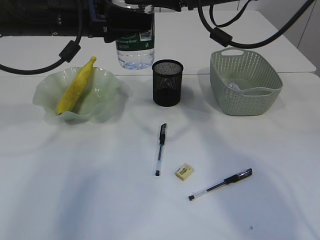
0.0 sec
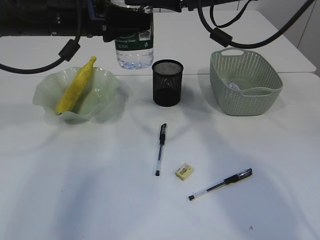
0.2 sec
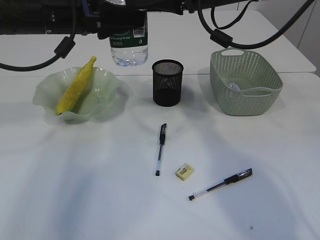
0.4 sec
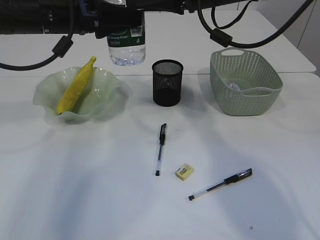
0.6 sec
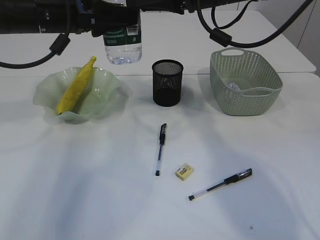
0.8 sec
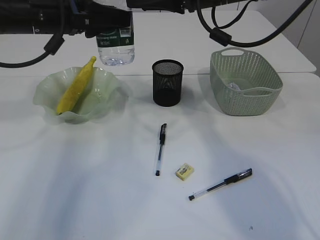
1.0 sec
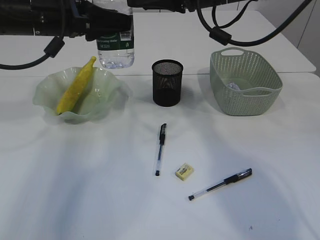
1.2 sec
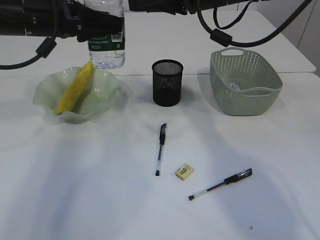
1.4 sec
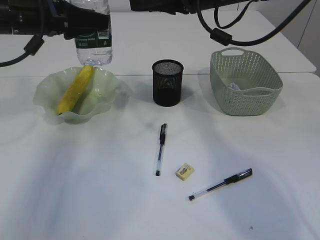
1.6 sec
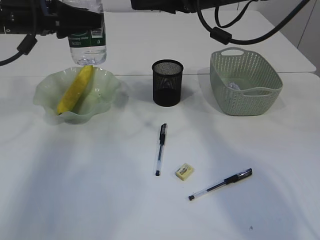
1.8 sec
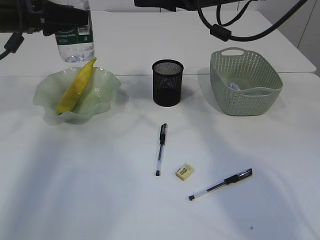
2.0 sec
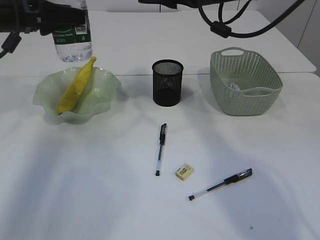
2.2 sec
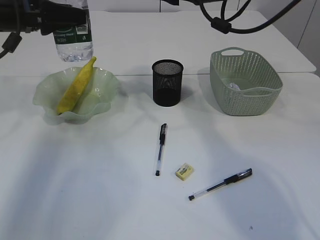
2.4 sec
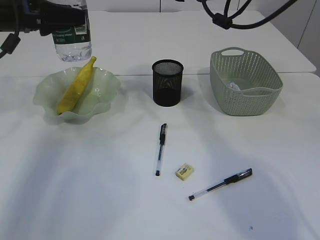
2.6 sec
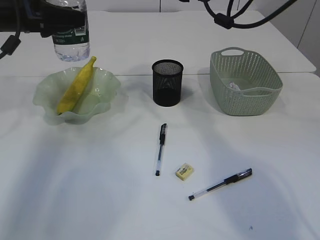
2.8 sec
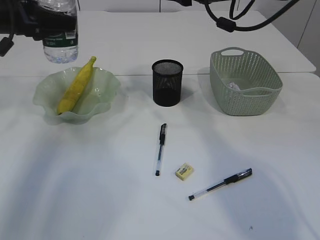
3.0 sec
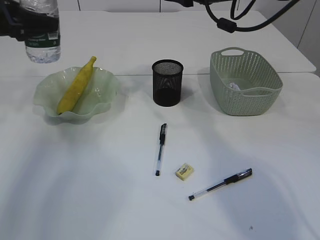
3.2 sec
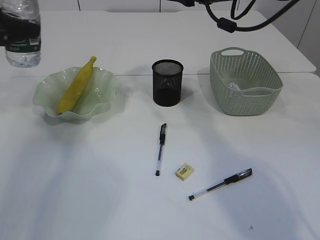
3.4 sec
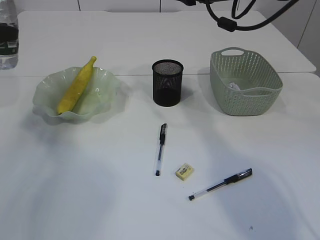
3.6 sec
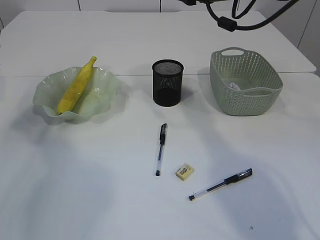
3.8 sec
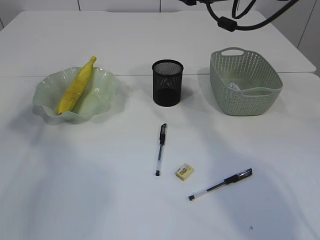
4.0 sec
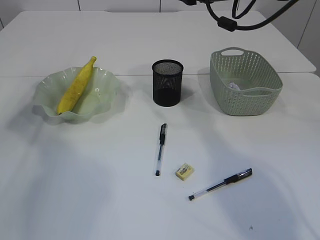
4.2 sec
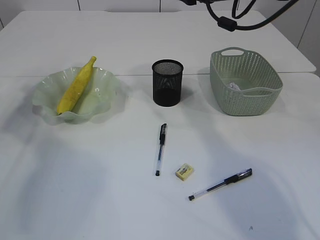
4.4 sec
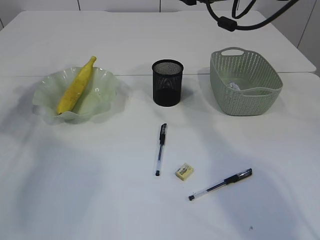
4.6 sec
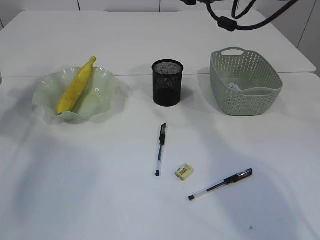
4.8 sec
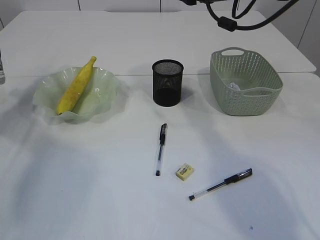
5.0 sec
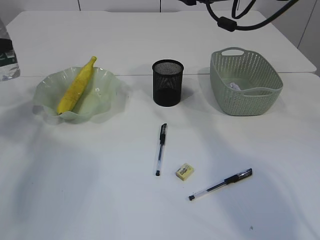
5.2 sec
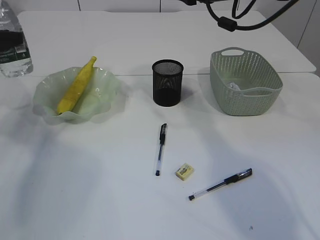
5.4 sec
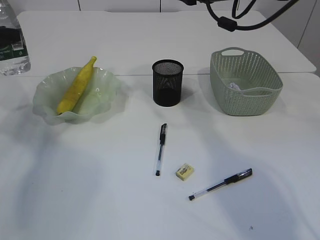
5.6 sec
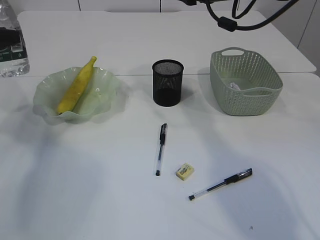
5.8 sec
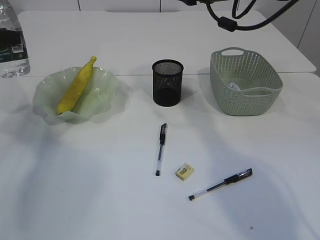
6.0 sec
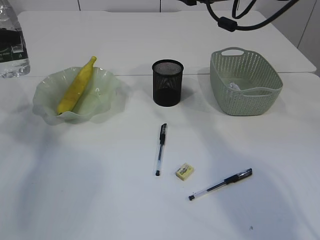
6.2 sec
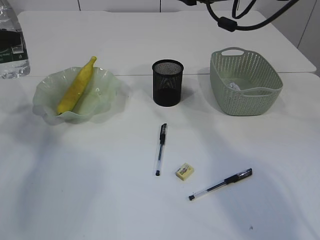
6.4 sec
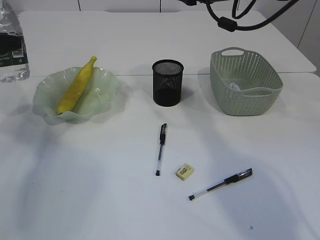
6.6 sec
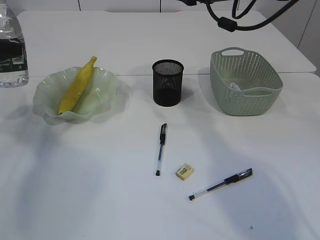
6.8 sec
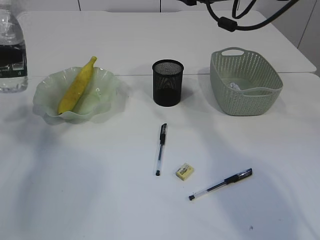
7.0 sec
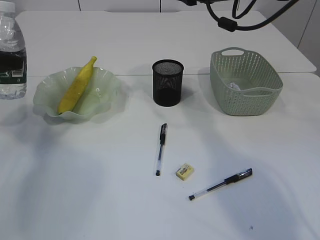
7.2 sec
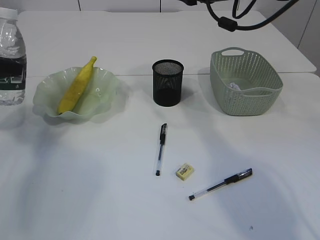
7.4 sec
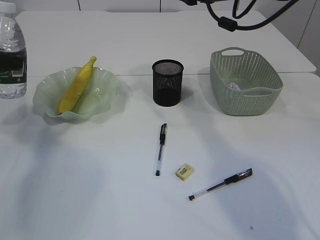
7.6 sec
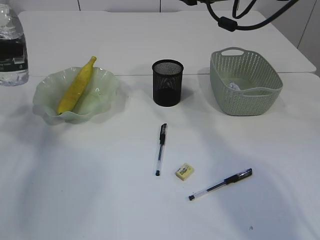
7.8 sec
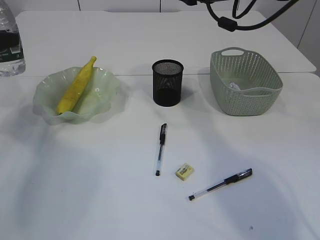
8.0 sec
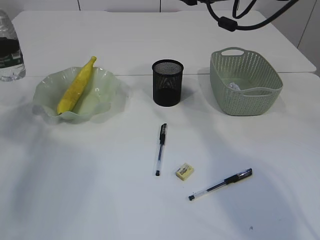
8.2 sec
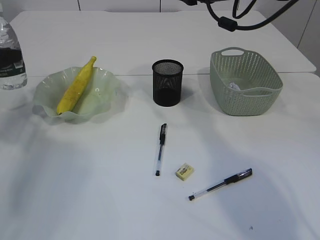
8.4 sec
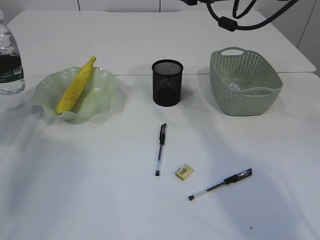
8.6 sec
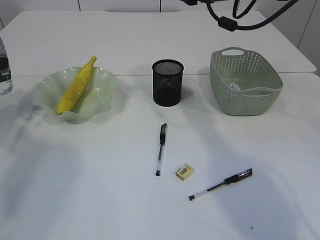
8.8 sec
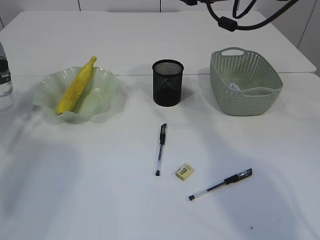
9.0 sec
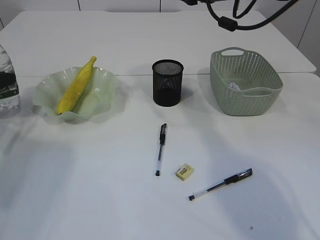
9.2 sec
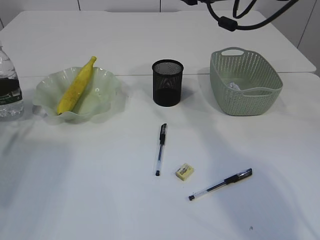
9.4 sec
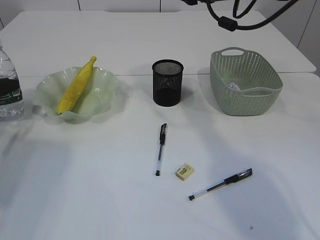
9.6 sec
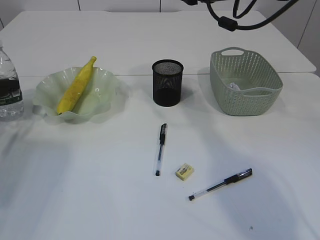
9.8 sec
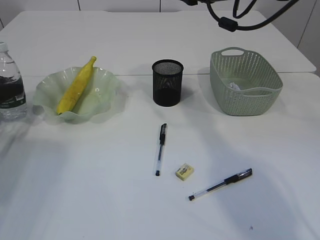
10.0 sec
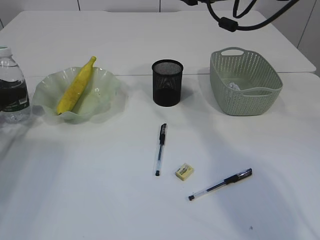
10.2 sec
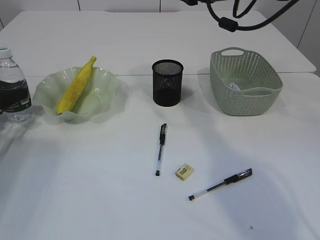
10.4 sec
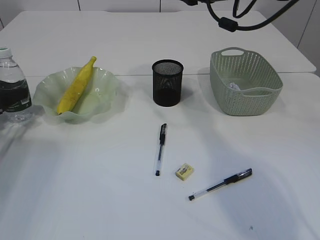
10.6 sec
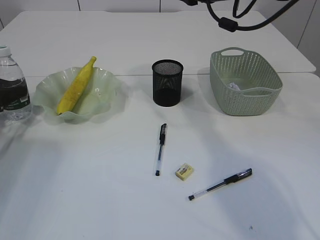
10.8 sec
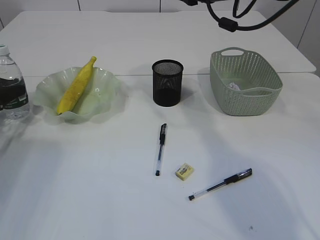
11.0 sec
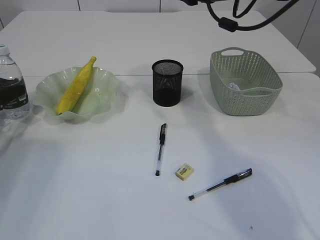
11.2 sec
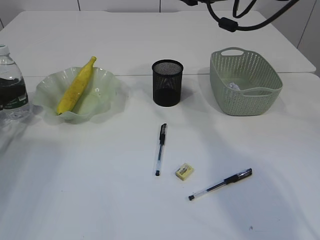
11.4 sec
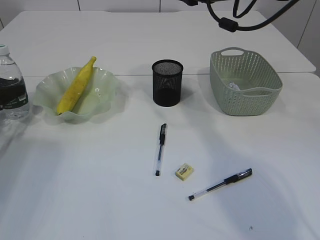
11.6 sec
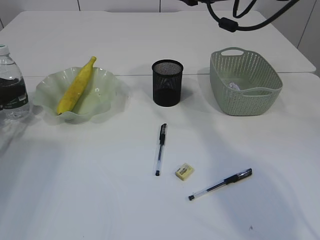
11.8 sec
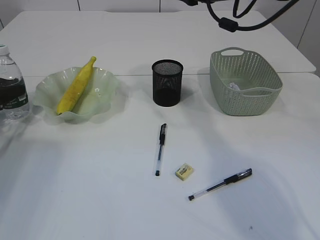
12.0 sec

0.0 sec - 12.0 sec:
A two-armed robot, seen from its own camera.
0.0 sec - 1.6 sec: The left gripper moves to the left, roughly 5 cm.
1.6 sec - 3.0 sec: The left gripper goes about 5 cm to the left. Meanwhile the right gripper closes up.
3.0 sec - 4.4 sec: The left gripper moves to the left, some 15 cm.
6.0 sec - 7.6 sec: The grippers stay close to where they were, moving slightly.
7.6 sec - 9.0 sec: The left gripper shifts roughly 10 cm downward and to the left.
9.0 sec - 10.4 sec: The left gripper is displaced downward by some 10 cm.

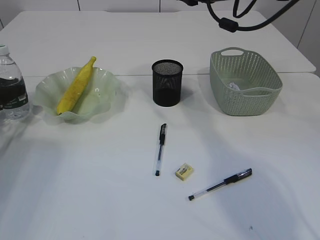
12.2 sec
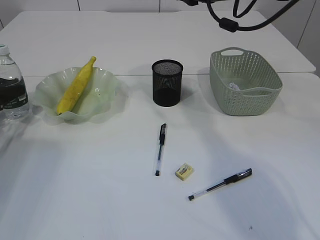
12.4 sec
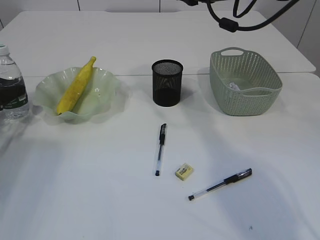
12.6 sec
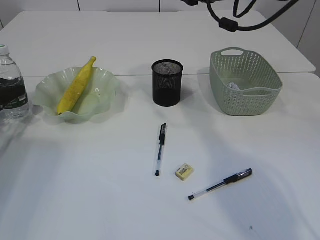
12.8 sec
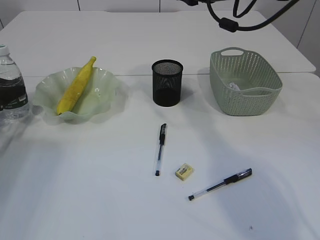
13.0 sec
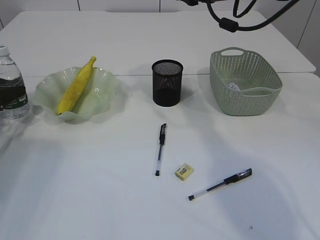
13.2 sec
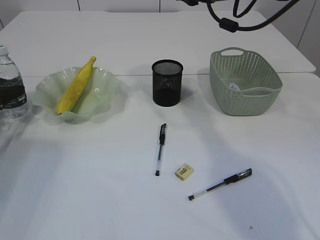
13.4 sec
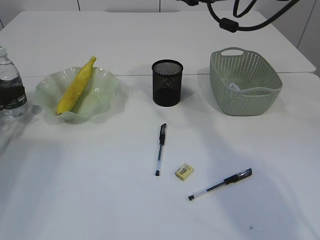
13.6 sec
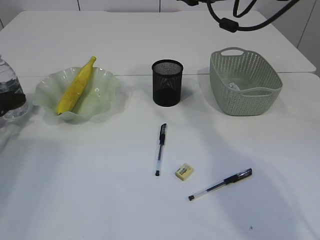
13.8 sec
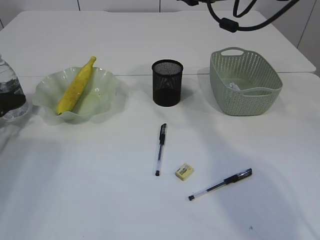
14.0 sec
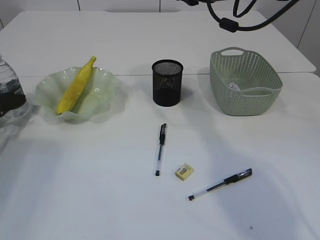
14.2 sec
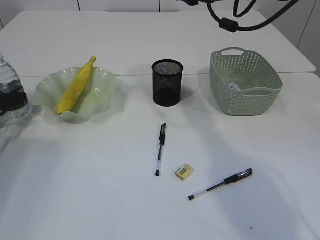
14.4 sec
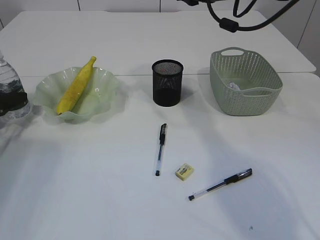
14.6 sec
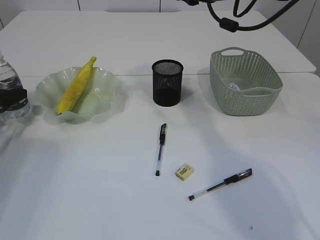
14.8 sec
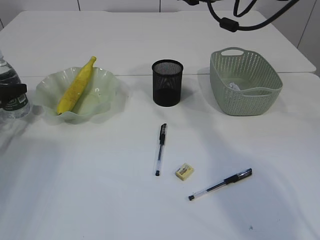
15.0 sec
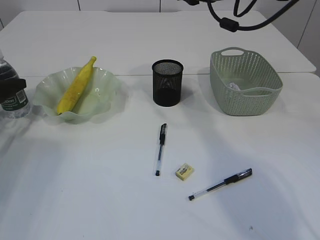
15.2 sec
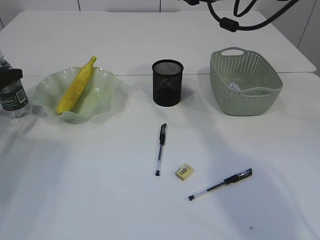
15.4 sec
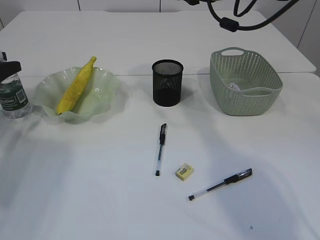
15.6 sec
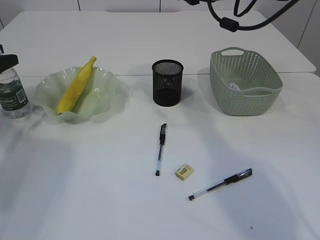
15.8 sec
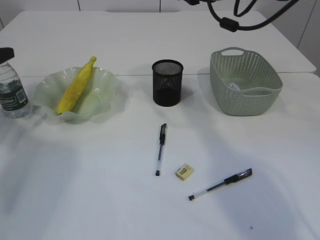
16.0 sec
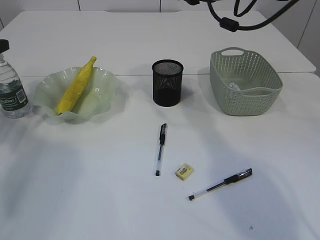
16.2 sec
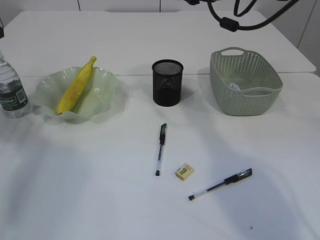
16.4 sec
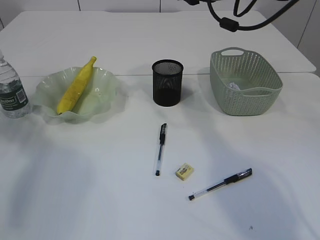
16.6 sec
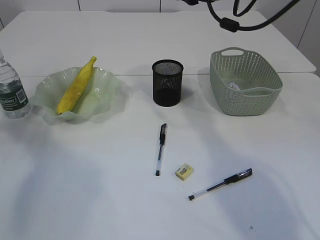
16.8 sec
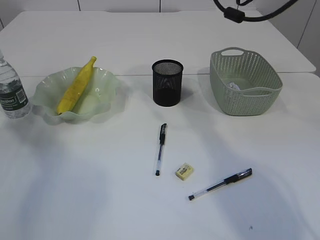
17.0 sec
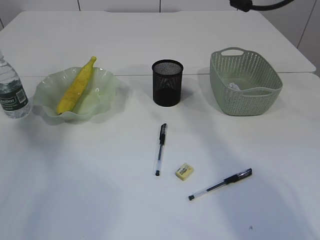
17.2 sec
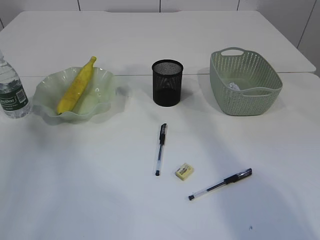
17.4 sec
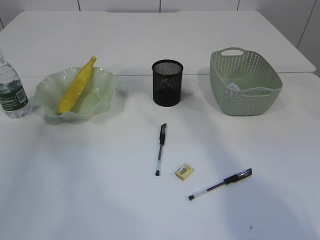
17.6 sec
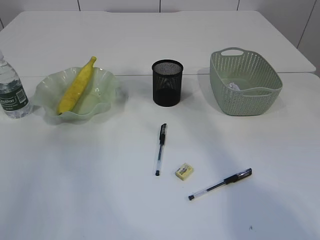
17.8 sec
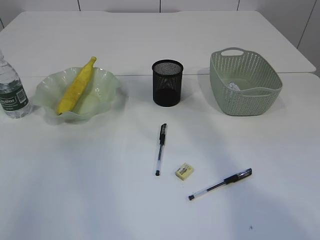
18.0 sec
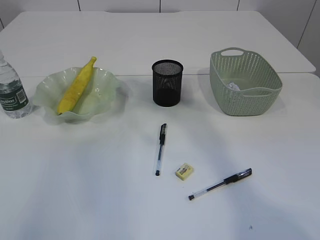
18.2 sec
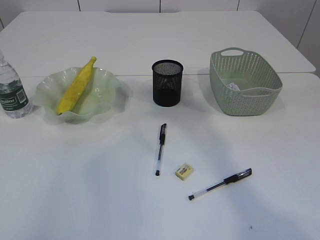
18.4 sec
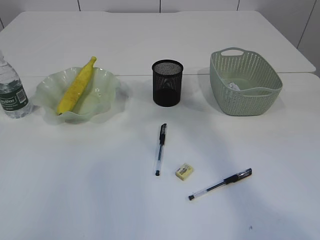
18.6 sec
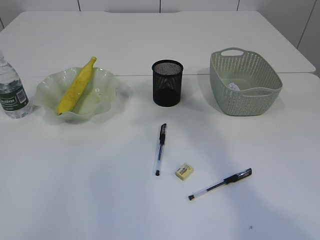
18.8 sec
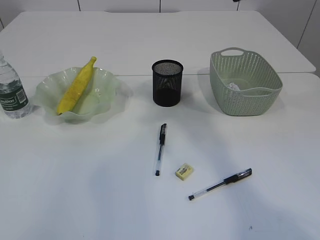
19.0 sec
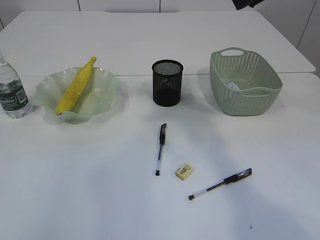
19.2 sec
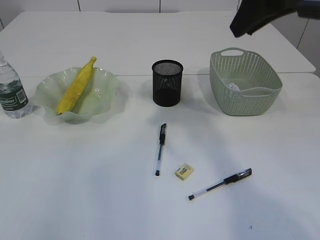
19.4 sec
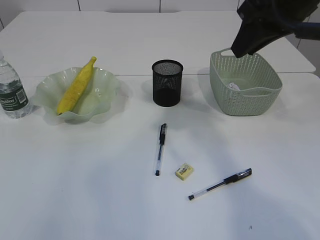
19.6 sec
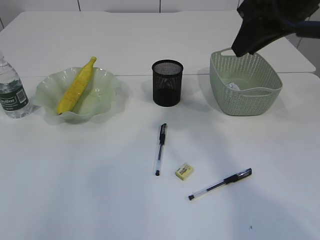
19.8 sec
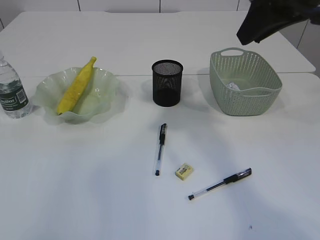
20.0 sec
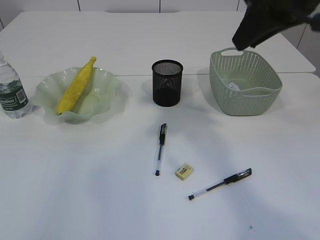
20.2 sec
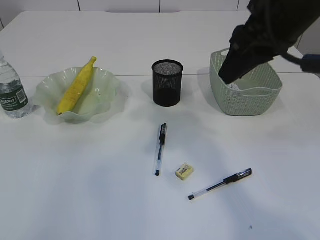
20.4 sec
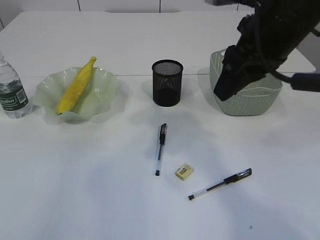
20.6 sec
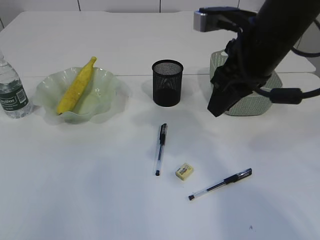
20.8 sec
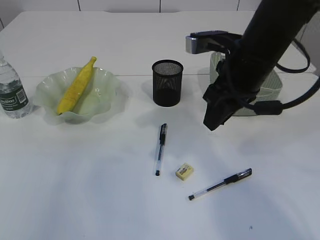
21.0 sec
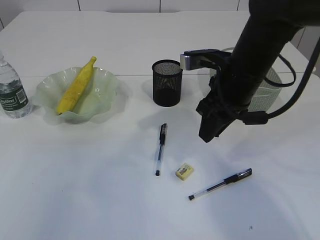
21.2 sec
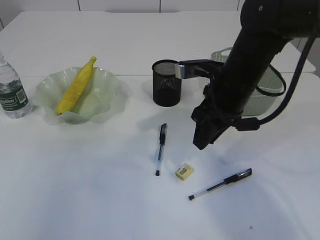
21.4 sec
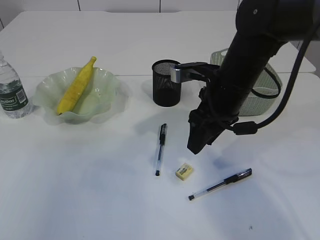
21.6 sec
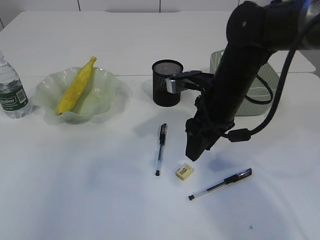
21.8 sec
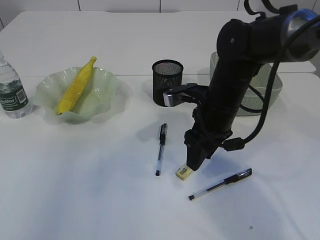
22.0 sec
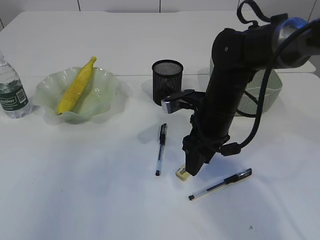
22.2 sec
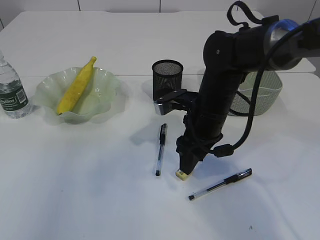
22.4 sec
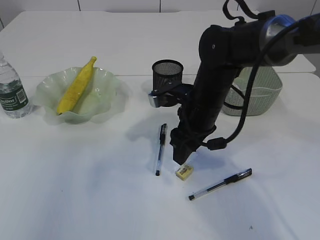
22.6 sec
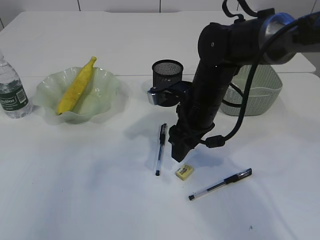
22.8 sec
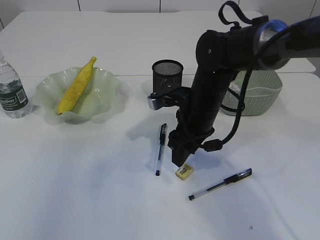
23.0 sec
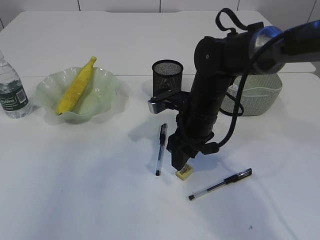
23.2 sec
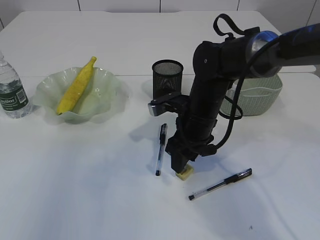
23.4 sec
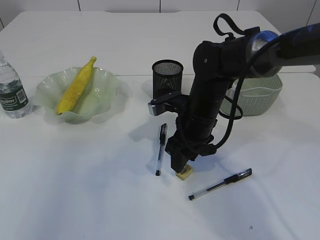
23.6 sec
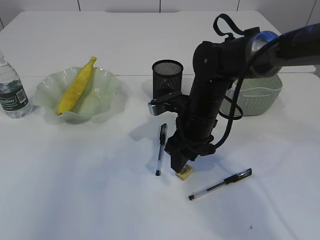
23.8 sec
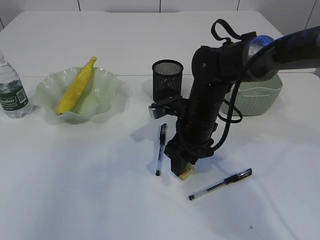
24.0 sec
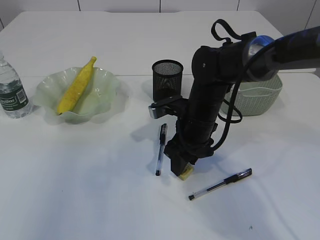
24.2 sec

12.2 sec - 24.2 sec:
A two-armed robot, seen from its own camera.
13.8 sec - 15.2 sec: The grippers stay close to where they were, moving slightly.
15.2 sec - 16.6 sec: The left gripper shifts roughly 15 cm upward.
16.6 sec - 18.2 sec: The left gripper travels upward and backward by some 35 cm; the right gripper moves backward and upward, about 20 cm.
18.2 sec - 19.8 sec: The left gripper is displaced backward by roughly 5 cm. Meanwhile the right gripper heads downward, covering roughly 10 cm.
19.8 sec - 21.2 sec: The right gripper travels downward by some 15 cm.
21.2 sec - 22.6 sec: The right gripper heads downward, covering about 5 cm.
22.6 sec - 24.2 sec: The grippers move only a little.
